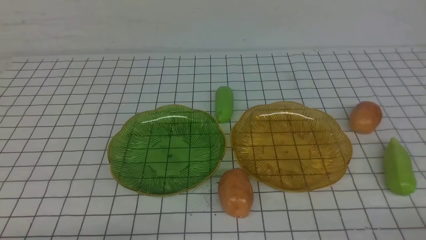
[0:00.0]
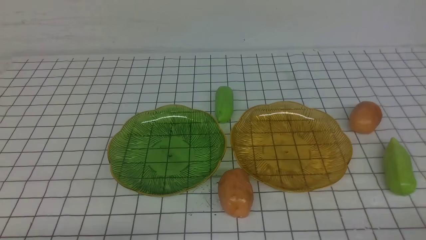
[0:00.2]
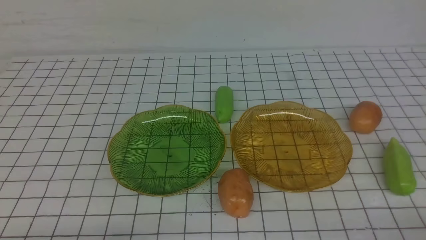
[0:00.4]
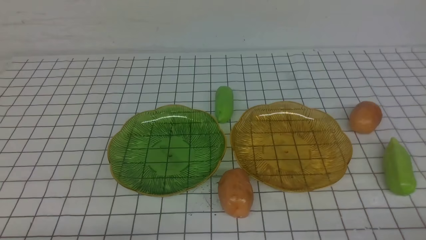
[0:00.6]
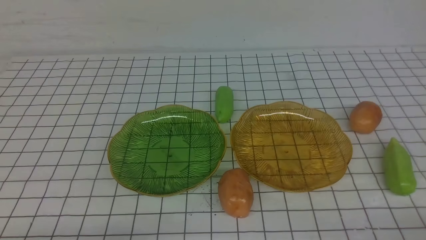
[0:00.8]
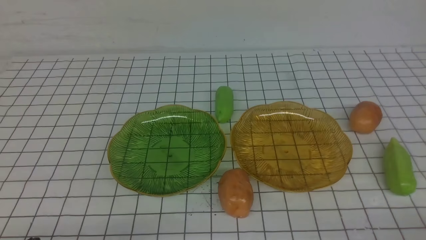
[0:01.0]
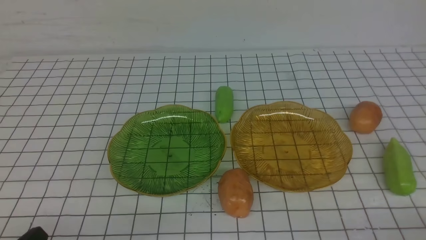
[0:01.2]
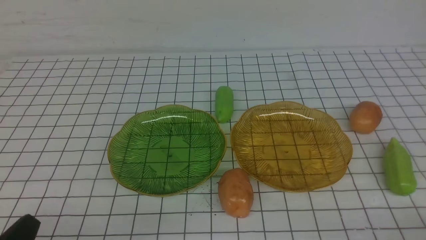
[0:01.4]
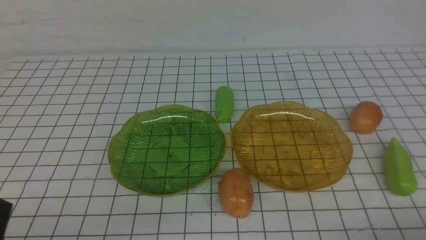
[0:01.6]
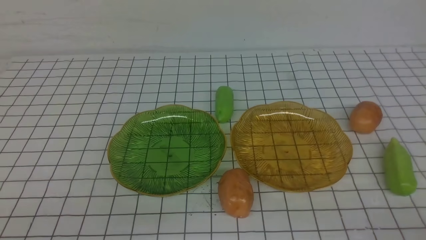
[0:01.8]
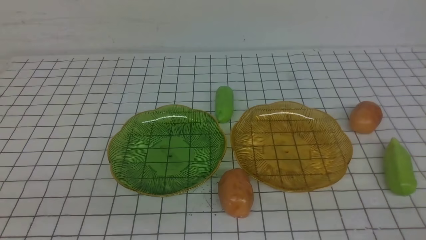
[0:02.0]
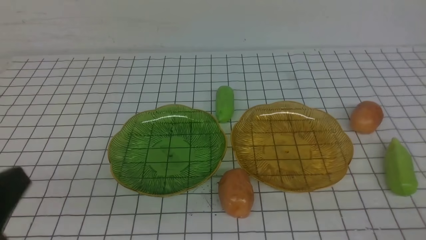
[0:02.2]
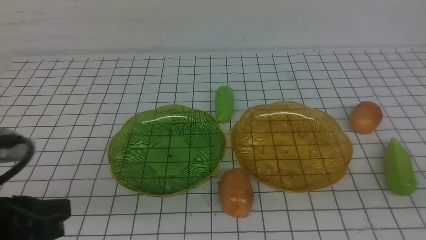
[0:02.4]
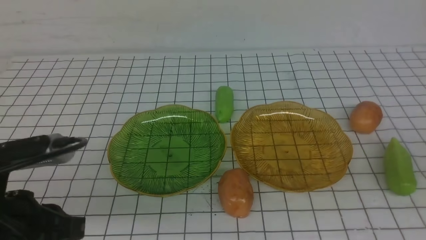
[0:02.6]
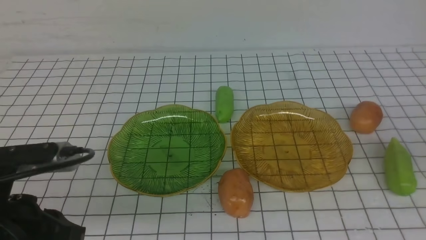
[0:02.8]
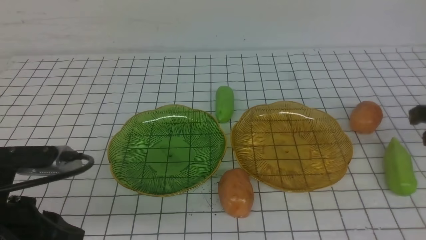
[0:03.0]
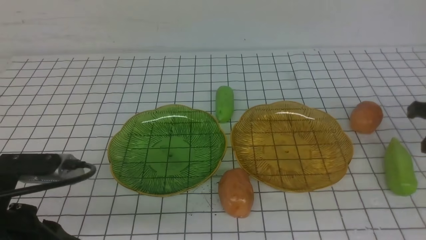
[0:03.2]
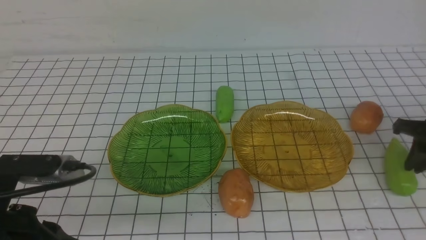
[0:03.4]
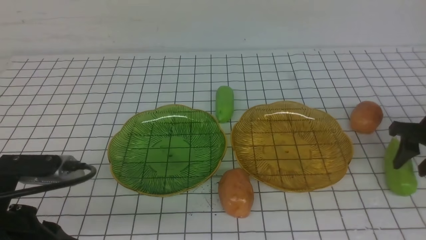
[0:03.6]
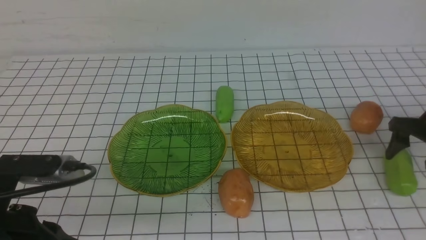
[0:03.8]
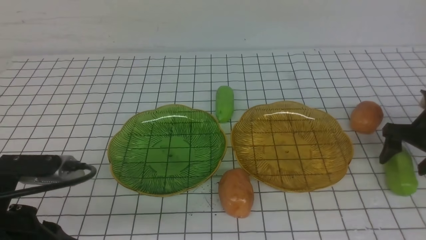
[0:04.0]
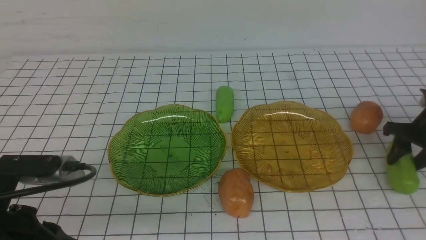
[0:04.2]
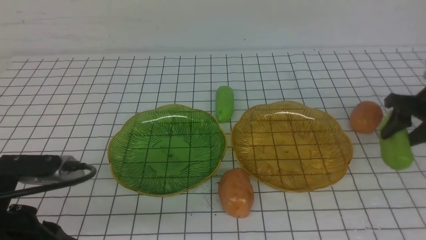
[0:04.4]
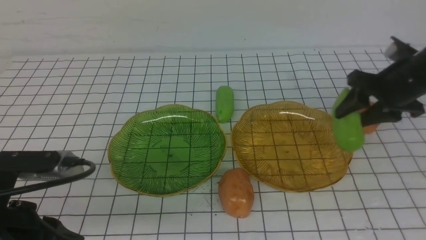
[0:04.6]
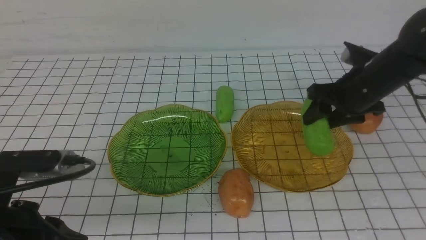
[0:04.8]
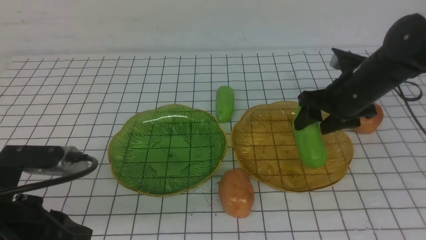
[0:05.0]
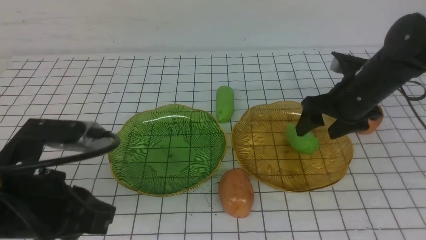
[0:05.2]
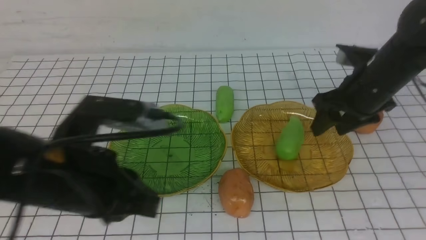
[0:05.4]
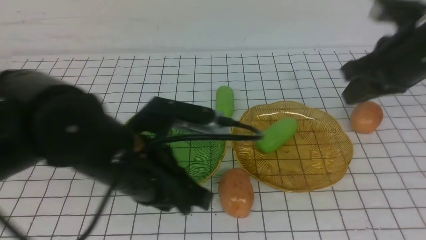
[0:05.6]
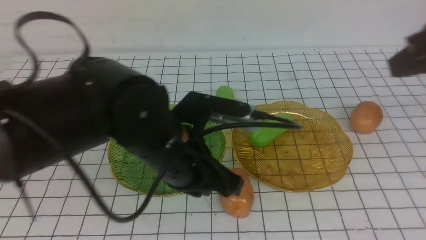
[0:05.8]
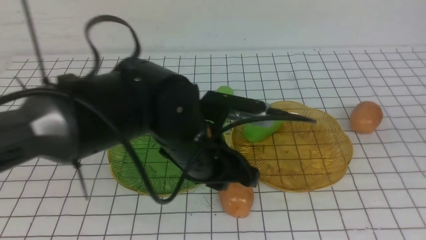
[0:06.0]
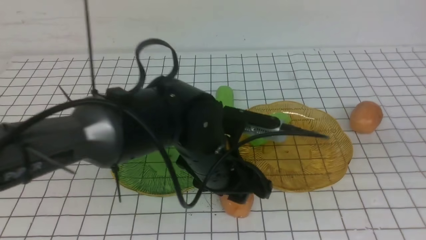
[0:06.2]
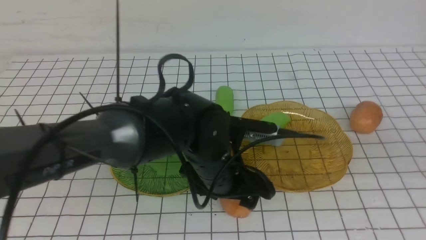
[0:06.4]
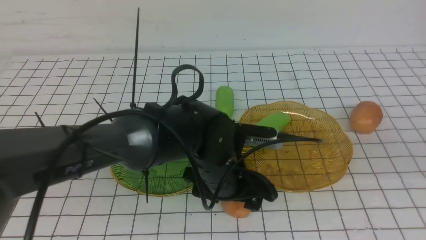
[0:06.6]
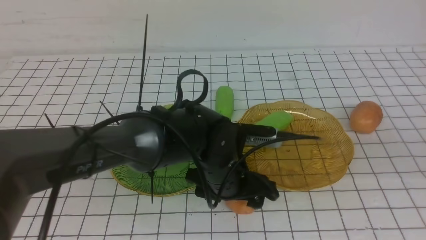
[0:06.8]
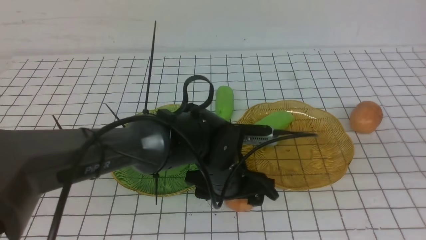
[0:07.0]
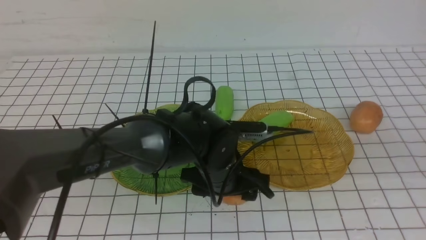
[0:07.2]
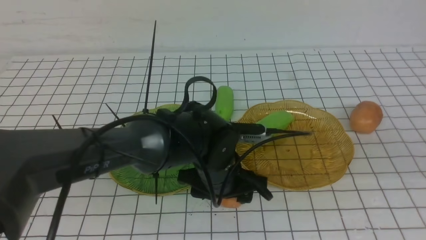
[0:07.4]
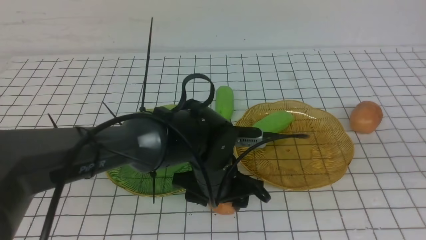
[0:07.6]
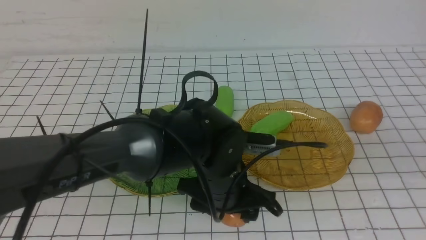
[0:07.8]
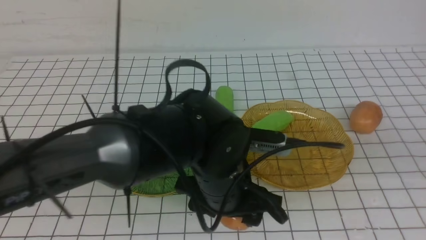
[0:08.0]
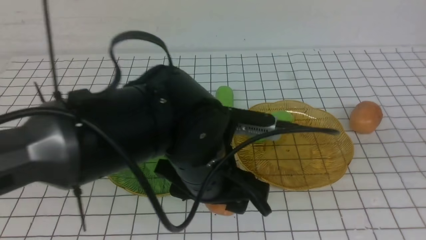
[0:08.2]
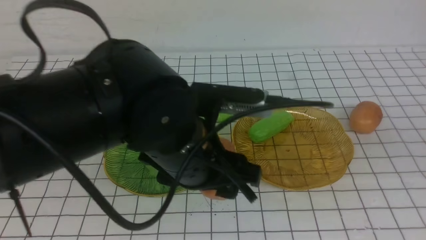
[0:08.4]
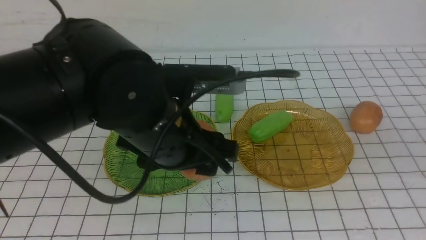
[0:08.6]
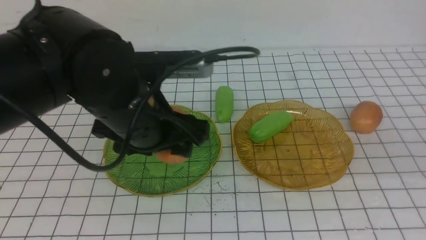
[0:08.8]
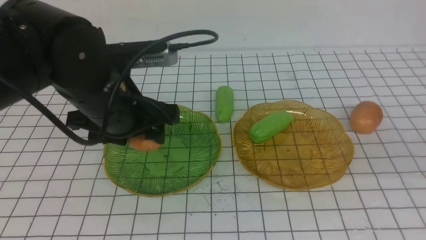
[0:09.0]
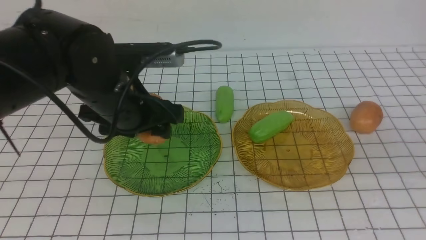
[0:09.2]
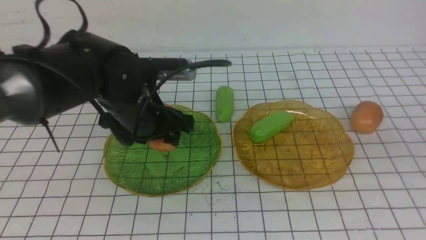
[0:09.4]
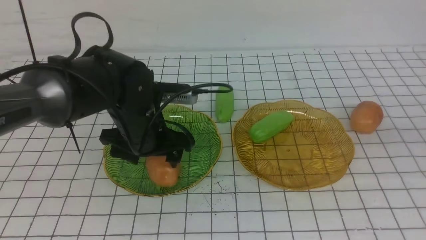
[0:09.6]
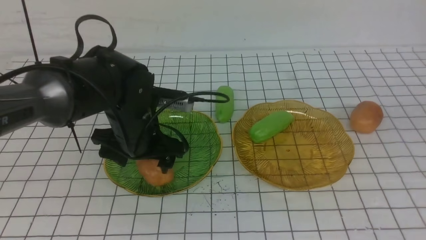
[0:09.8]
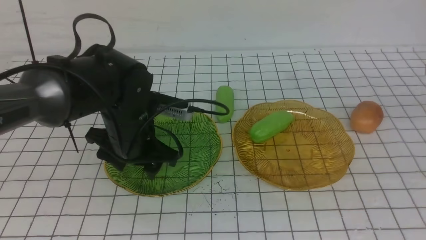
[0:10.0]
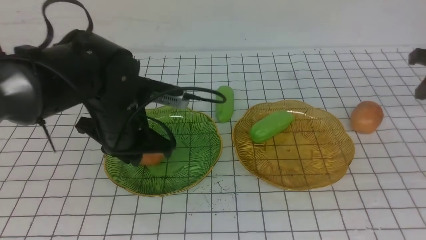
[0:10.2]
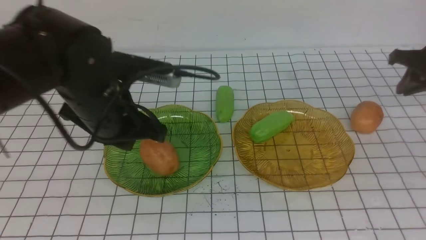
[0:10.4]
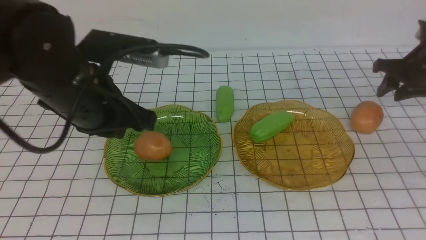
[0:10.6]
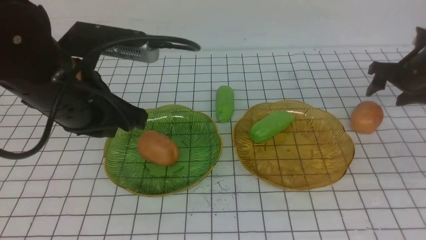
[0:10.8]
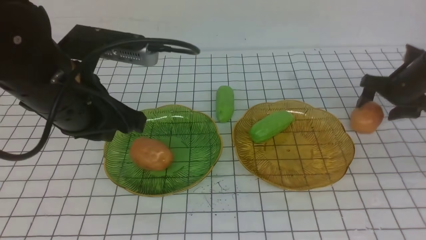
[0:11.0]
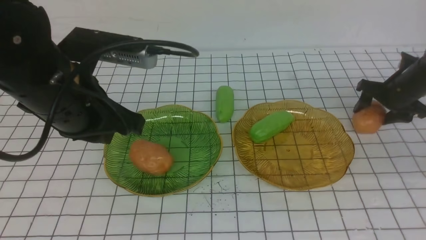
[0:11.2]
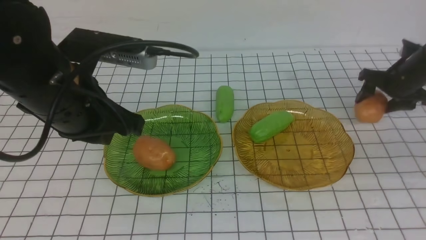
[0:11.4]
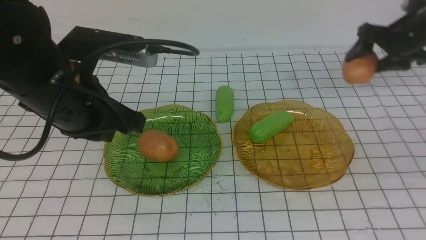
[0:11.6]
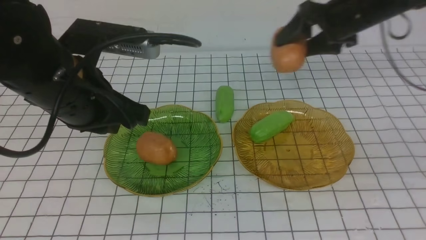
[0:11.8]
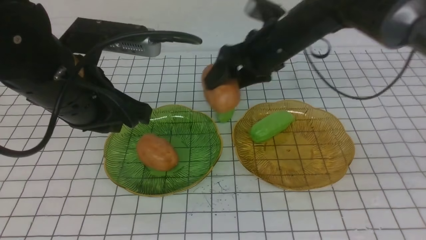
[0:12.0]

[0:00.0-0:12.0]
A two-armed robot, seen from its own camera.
Step, 0.0 to 5.2 s: use the right arm to grab a chayote and put it into the right plate.
Step, 5.4 to 9.8 s: Grab a potato with your left arm and put it on the left plate.
1.6 to 3.0 s: The right gripper moves forward and upward, about 20 cm. The left gripper heads forward and upward, covering approximately 10 cm.
3.0 to 4.4 s: The right gripper heads forward and downward, covering approximately 15 cm, and opens its fingers.
4.4 to 6.0 s: The left gripper heads to the right and forward, covering roughly 20 cm. The right gripper moves upward, backward and to the left, approximately 30 cm, and closes up.
6.0 to 7.6 s: The left gripper heads downward, covering about 10 cm, and opens; the right gripper moves backward, approximately 10 cm.
7.6 to 9.0 s: The left gripper moves upward and to the left, approximately 15 cm.
9.0 to 10.4 s: The right gripper heads forward, covering roughly 30 cm, while the left gripper travels downward and back again, about 10 cm each way, and closes up.
10.4 to 12.0 s: The left gripper heads upward, covering roughly 5 cm, while the right gripper is displaced to the left by some 25 cm, and opens up.

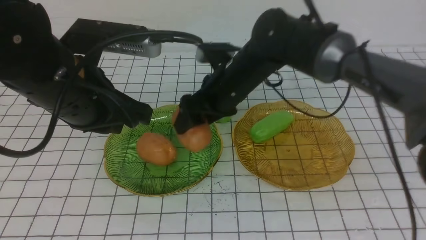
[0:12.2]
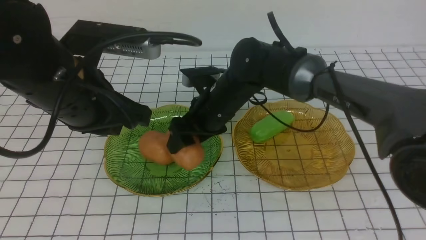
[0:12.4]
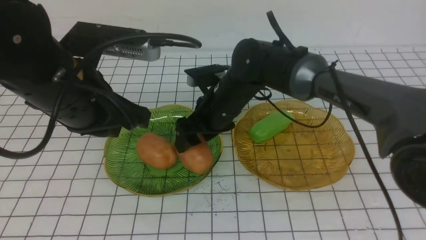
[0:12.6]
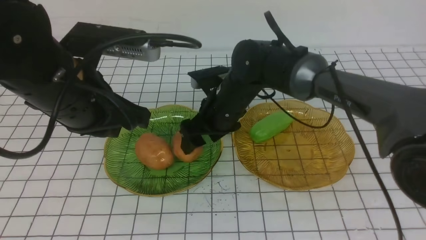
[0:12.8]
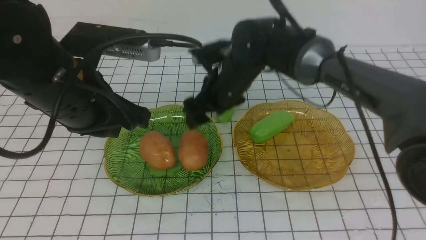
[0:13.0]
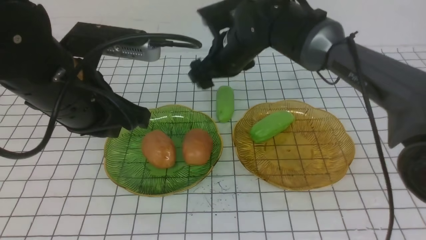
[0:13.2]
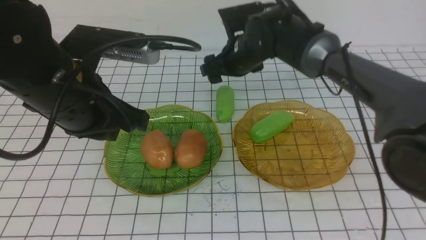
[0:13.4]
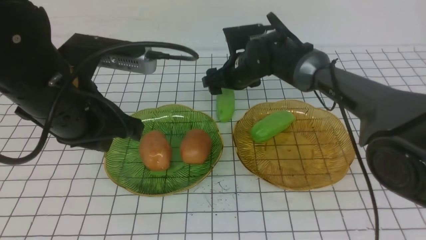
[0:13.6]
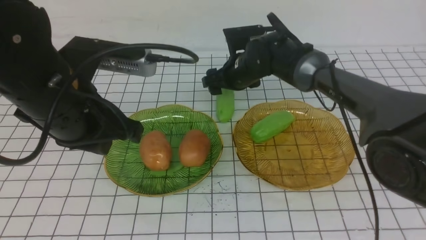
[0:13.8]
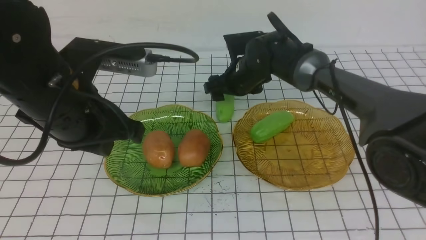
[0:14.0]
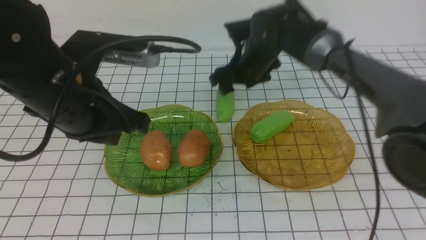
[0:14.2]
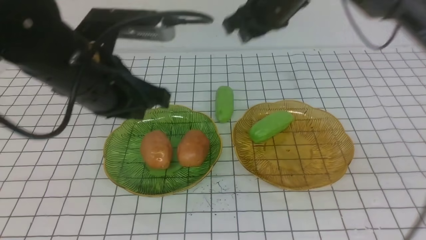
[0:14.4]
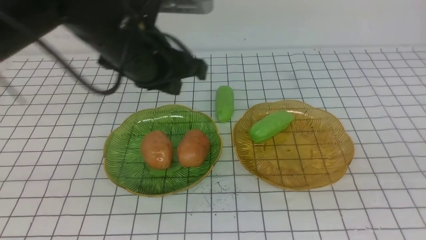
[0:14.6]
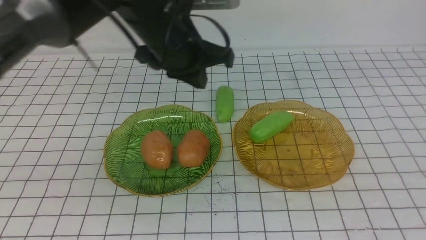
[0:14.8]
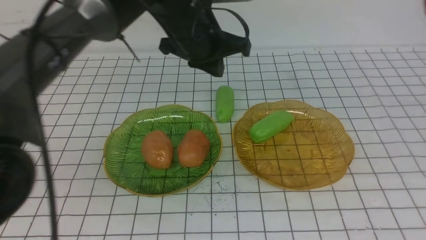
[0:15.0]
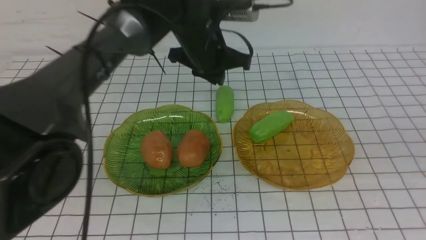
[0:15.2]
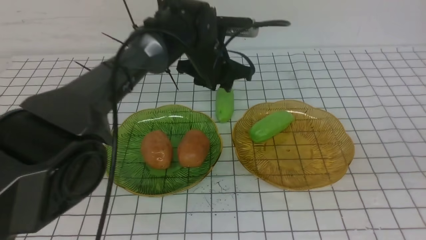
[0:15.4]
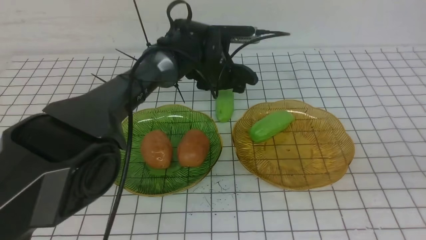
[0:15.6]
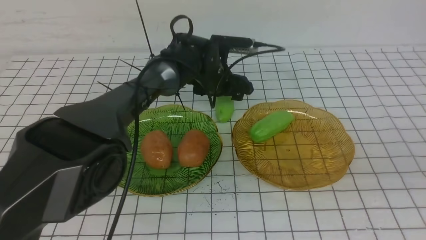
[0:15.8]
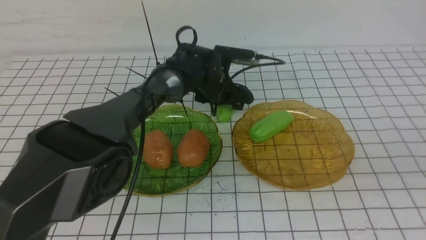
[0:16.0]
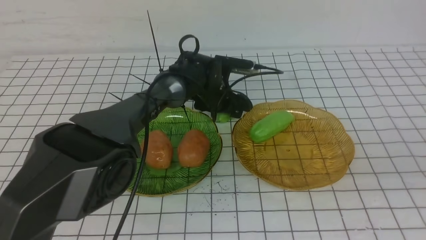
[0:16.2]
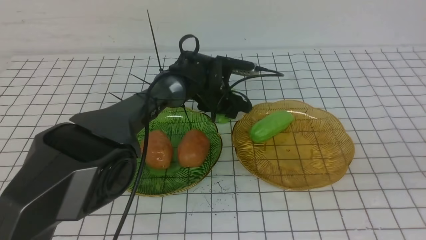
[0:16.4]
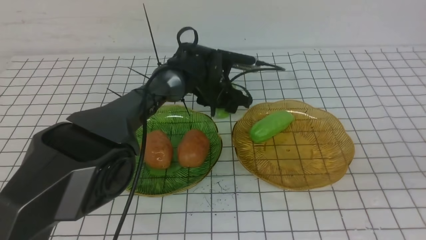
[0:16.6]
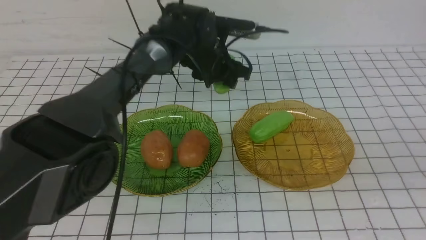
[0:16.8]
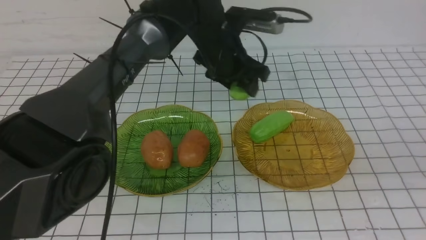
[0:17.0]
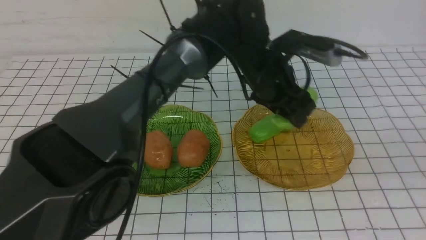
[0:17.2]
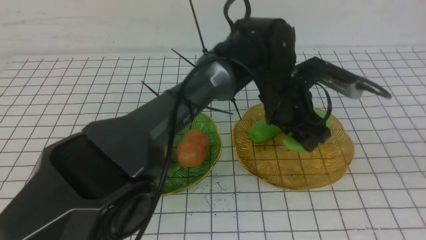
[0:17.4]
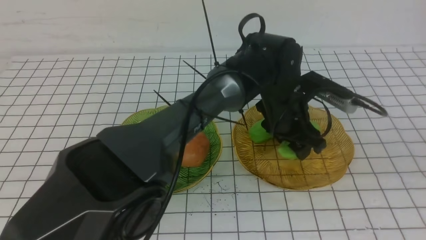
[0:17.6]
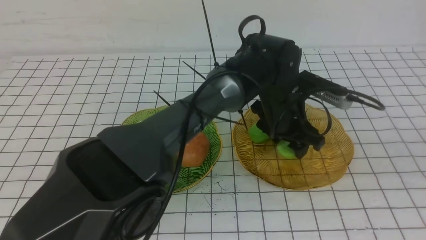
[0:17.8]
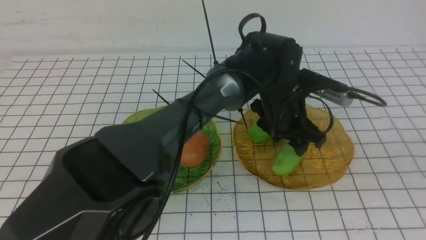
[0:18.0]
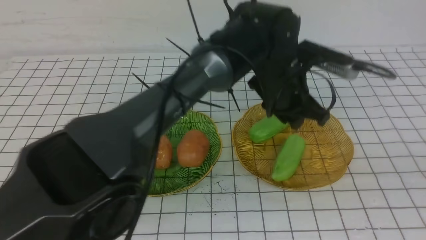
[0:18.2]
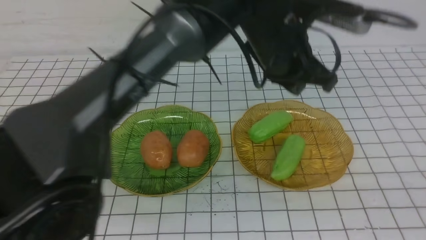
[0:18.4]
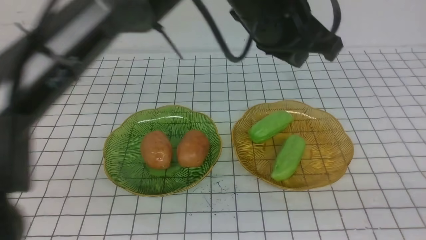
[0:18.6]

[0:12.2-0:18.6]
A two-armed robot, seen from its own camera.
Step, 13.0 to 18.0 s: use the left arm to grab a chayote and put it into the right plate.
12.2 to 13.8 s: The right gripper goes roughly 10 cm forward and downward.
13.8 to 15.4 s: The right gripper heads backward, to the right and upward, covering about 50 cm, and closes. The left gripper moves forward and to the right, roughly 25 cm, and opens its fingers.
15.4 to 17.0 s: The left gripper travels downward and back again, some 10 cm each way.
17.0 to 18.6 s: The left gripper heads backward and upward, covering some 20 cm, and closes up. Meanwhile the right gripper is displaced backward by approximately 10 cm.
